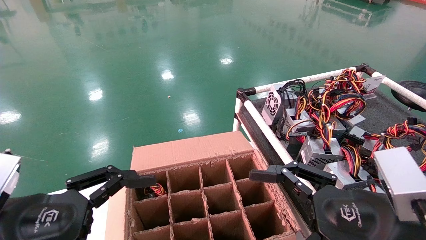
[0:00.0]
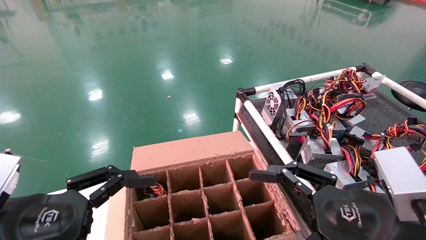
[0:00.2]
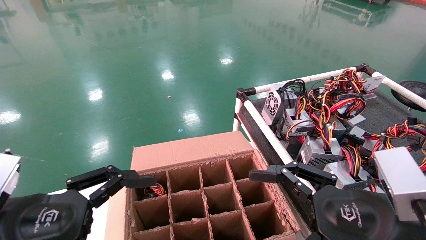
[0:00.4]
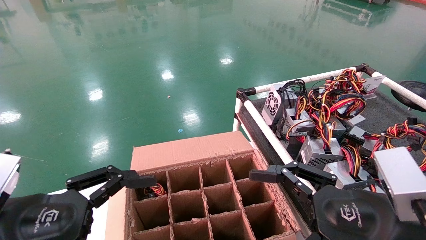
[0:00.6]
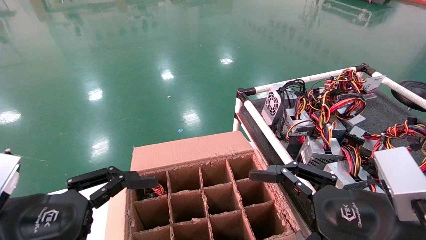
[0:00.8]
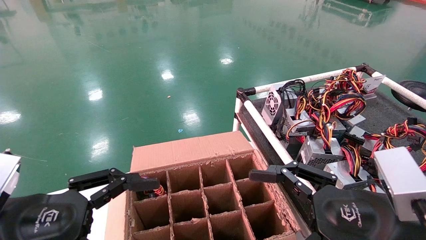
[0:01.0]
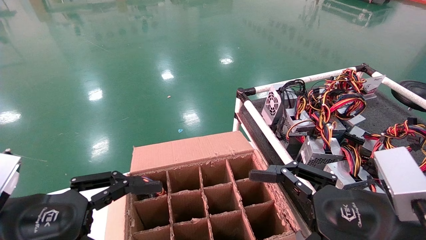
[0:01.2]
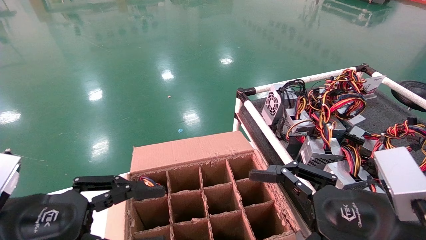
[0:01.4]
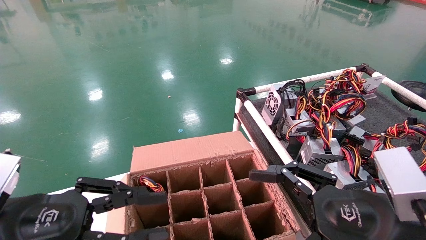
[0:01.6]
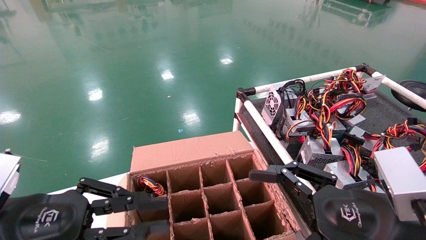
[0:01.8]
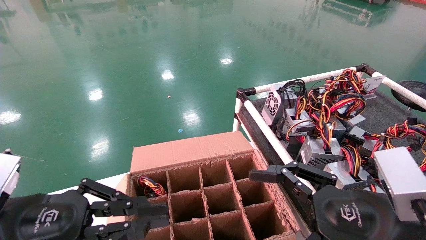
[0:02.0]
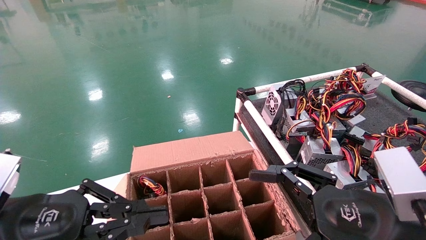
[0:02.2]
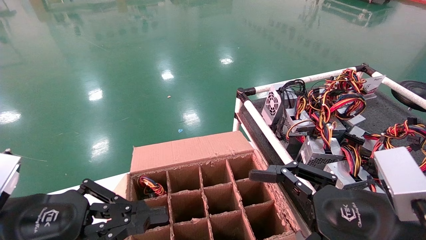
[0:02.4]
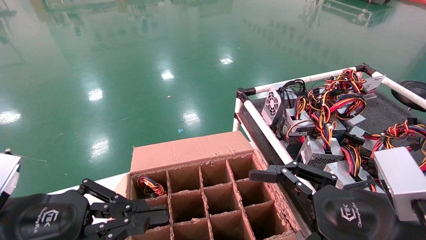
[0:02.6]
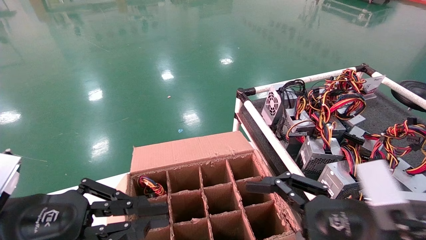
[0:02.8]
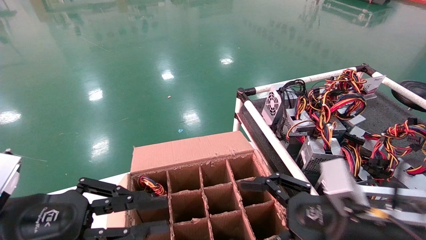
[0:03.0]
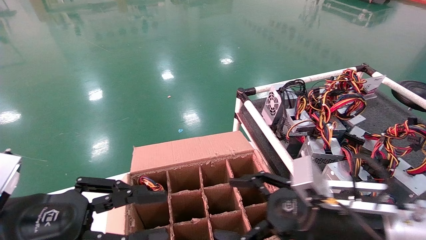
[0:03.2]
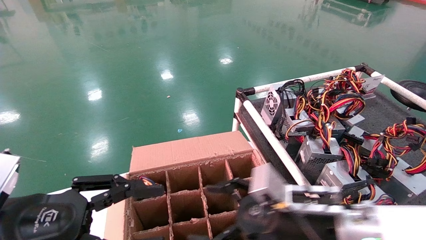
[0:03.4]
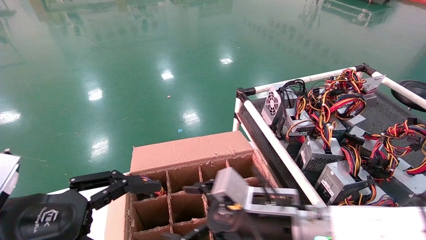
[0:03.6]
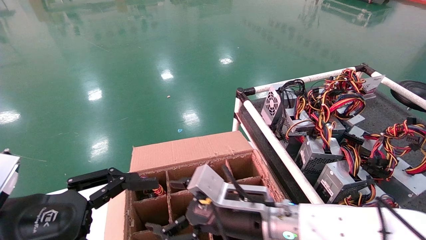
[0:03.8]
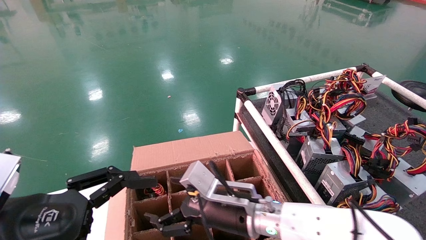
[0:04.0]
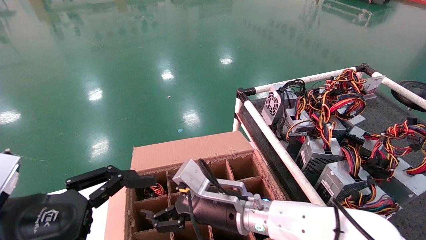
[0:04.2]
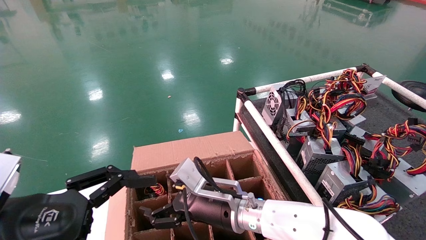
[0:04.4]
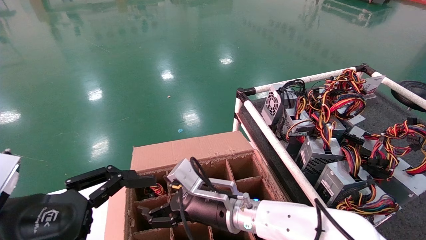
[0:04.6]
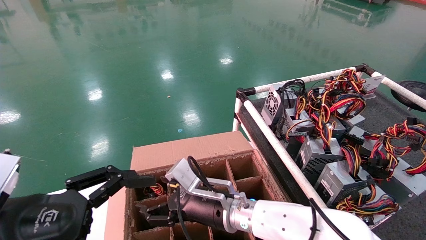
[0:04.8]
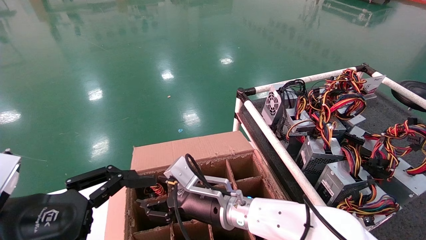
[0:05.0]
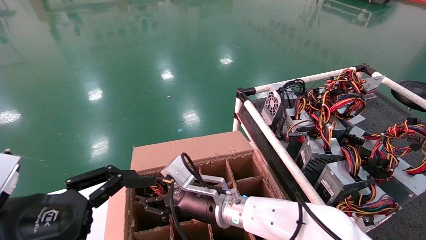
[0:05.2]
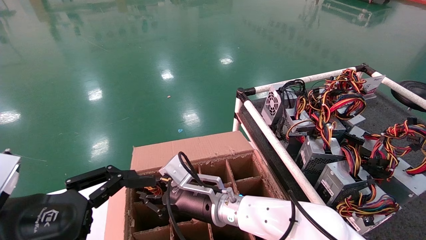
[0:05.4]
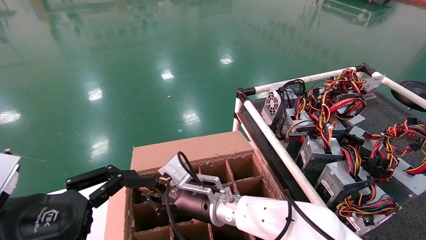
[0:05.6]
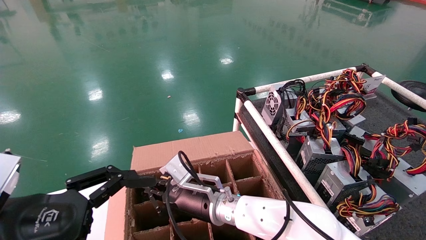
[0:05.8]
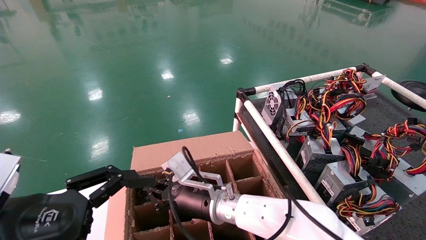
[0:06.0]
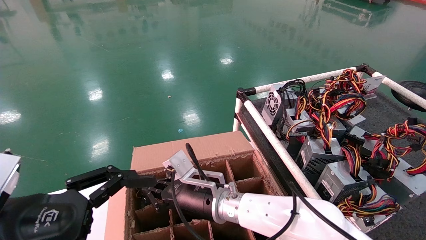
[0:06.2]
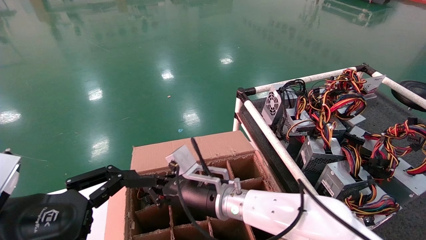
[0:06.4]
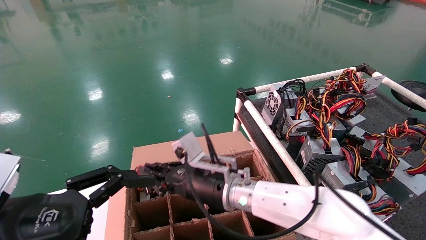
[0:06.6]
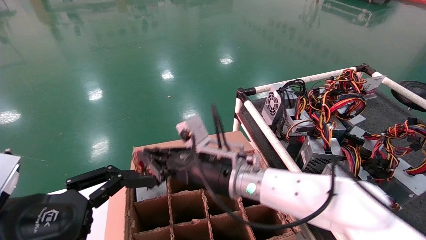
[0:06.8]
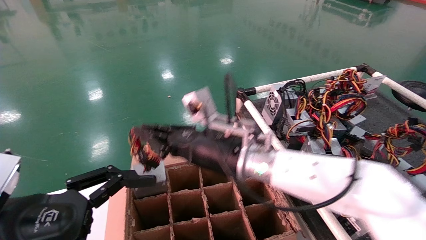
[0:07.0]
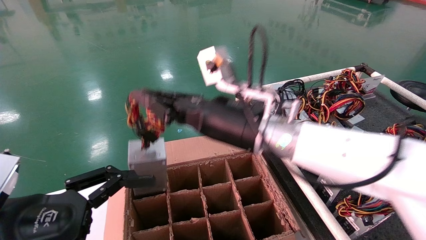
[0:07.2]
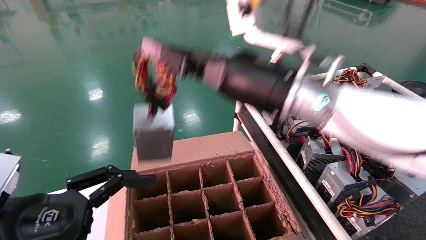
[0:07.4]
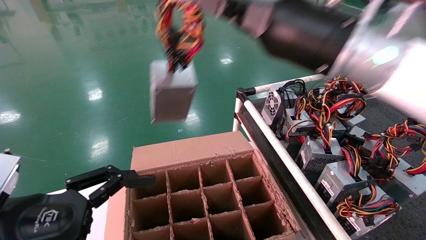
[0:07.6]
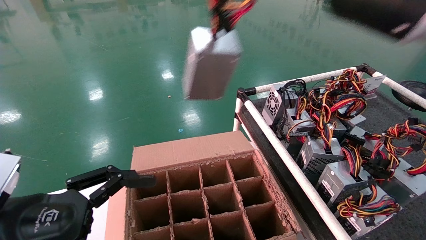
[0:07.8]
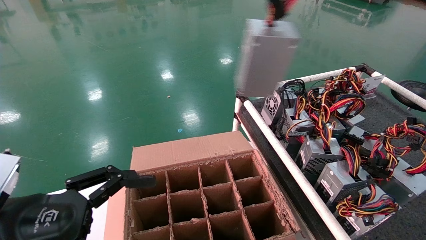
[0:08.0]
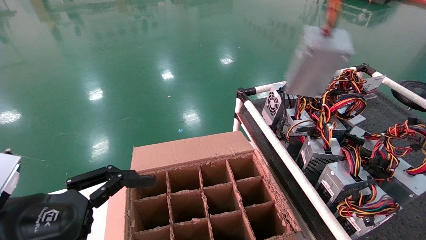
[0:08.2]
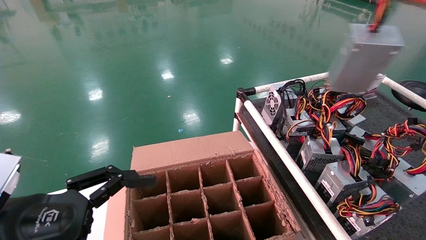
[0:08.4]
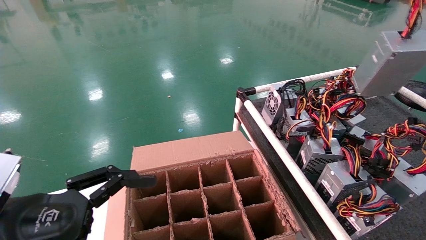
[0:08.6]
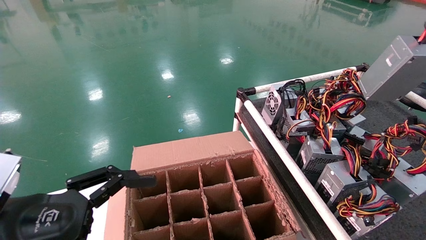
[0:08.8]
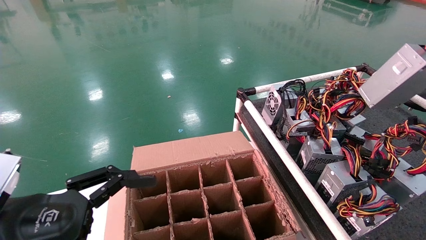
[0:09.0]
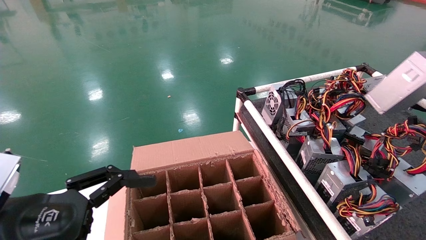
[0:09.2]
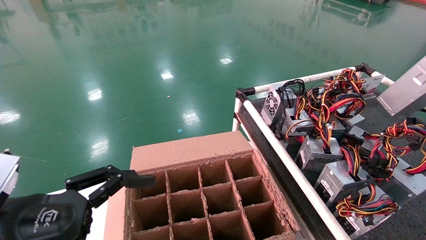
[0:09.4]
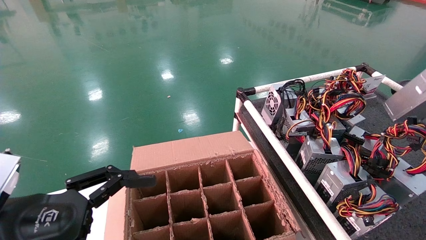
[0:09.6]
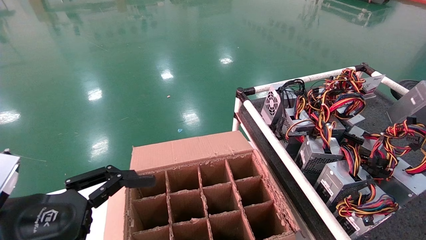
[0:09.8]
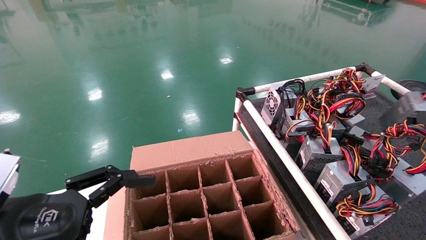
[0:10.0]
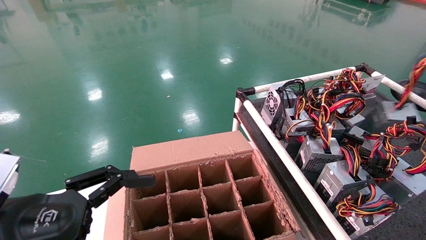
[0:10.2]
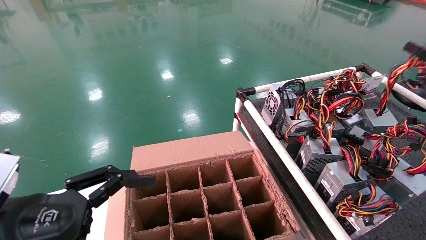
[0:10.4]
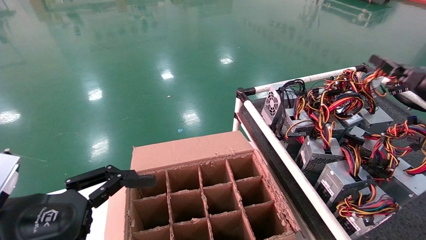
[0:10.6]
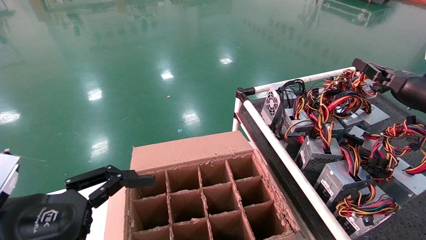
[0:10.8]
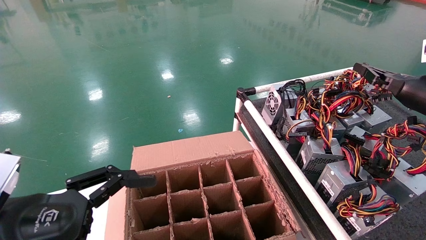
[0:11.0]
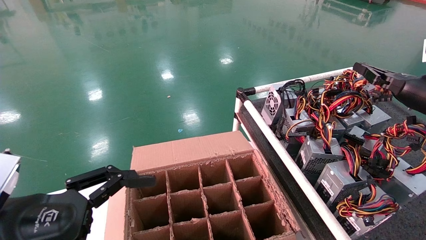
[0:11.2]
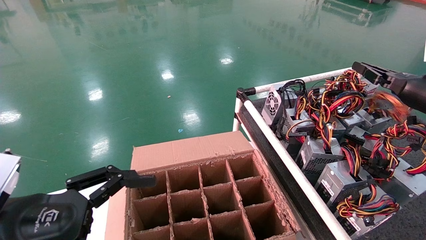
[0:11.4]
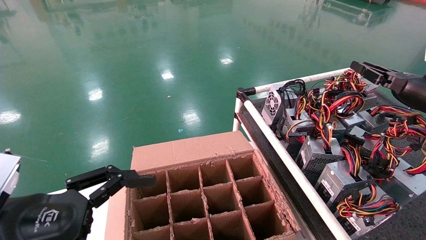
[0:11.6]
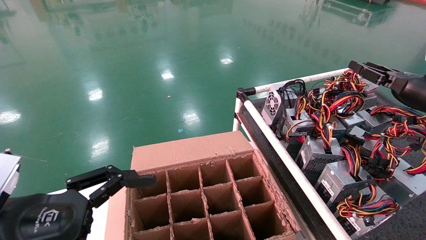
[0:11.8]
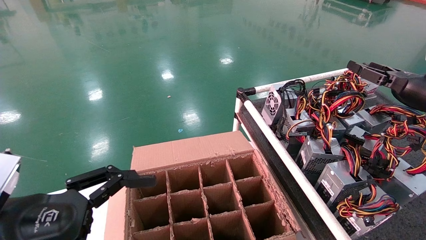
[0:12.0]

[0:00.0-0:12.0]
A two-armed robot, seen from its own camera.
Step, 0:03.0 to 0:06.0: Grab and lift the power supply from the large box.
Step, 0:06.2 to 0:11.6: Place the power supply on the operating table.
0:00.0 to 0:01.6: The left gripper closes up.
0:01.6 to 0:03.0: The right gripper moves approximately 5 cm.
0:03.0 to 0:04.4: The right gripper goes about 25 cm to the left and forward; the left gripper opens its fingers.
0:04.4 to 0:06.0: The right gripper changes place by some 5 cm, and closes.
0:06.0 to 0:07.6: The right gripper goes roughly 35 cm upward, to the right and backward.
0:07.6 to 0:09.0: The right gripper travels to the right by approximately 35 cm.
0:09.0 to 0:10.4: The right gripper moves forward and downward, about 15 cm.
0:10.4 to 0:12.0: The right gripper goes approximately 5 cm to the left, and opens.

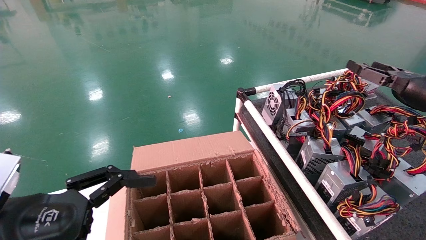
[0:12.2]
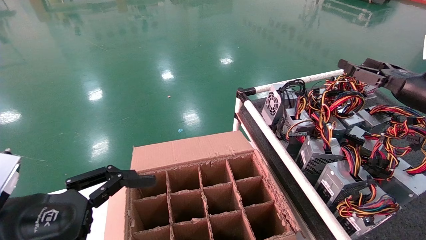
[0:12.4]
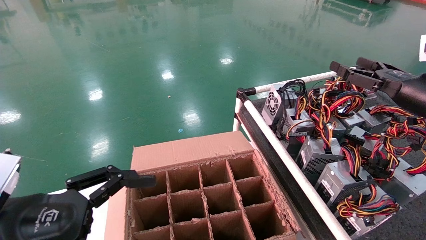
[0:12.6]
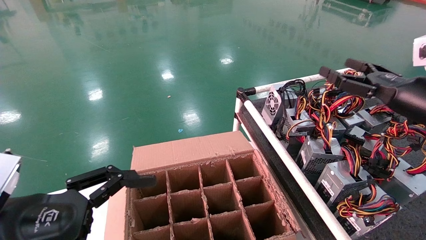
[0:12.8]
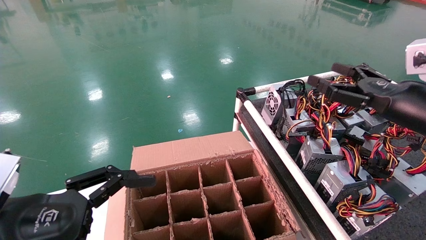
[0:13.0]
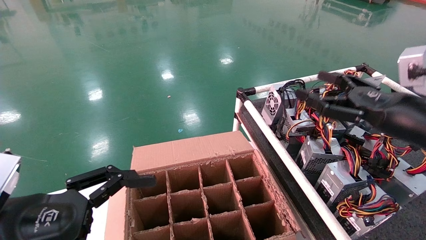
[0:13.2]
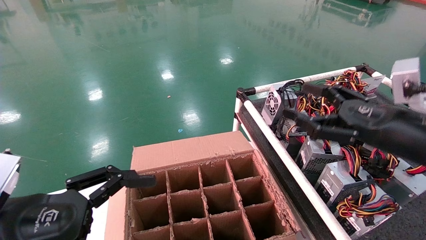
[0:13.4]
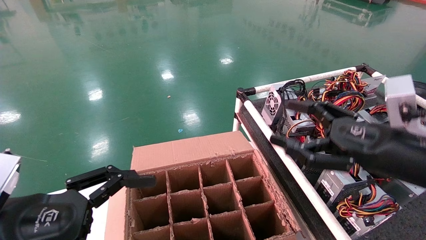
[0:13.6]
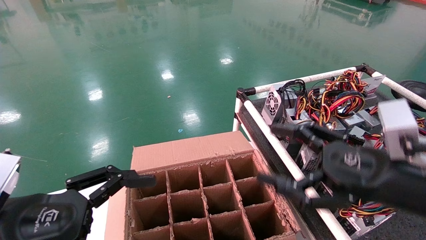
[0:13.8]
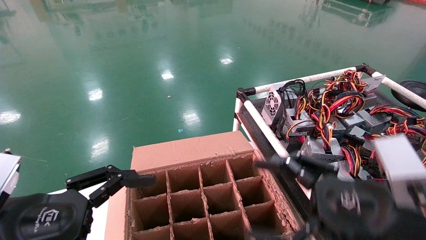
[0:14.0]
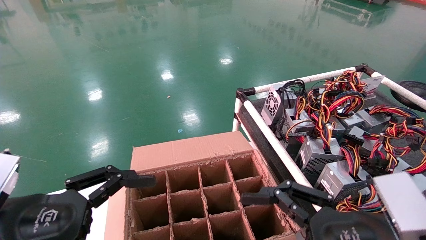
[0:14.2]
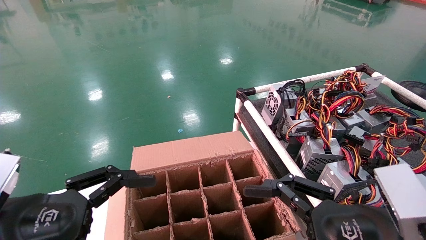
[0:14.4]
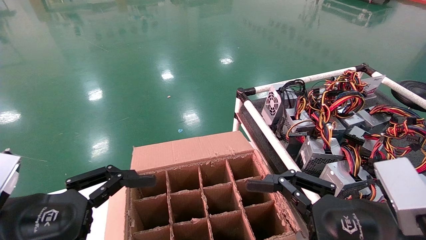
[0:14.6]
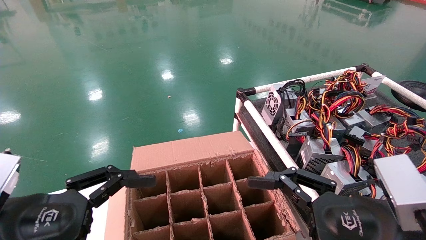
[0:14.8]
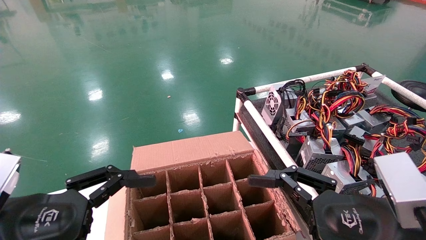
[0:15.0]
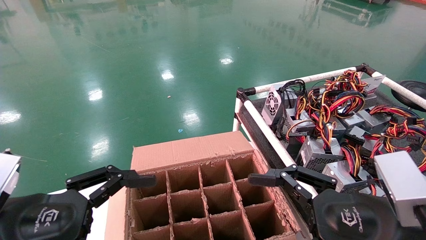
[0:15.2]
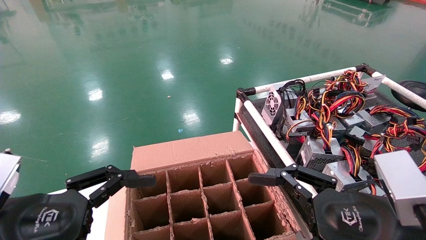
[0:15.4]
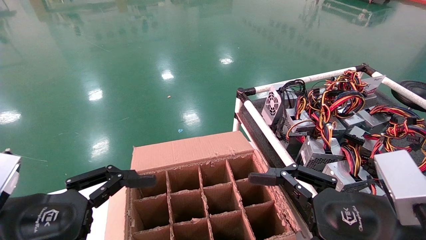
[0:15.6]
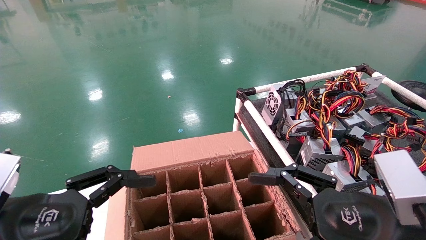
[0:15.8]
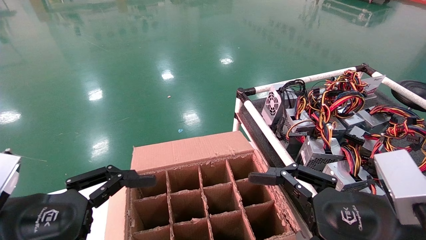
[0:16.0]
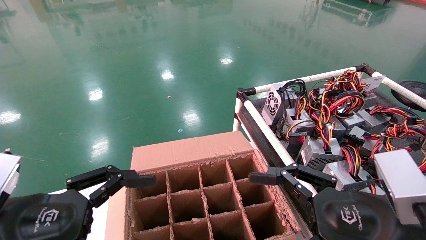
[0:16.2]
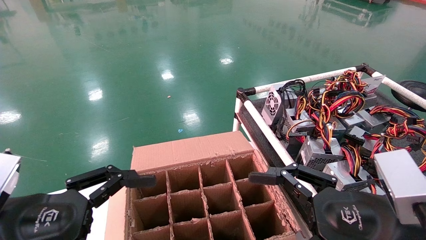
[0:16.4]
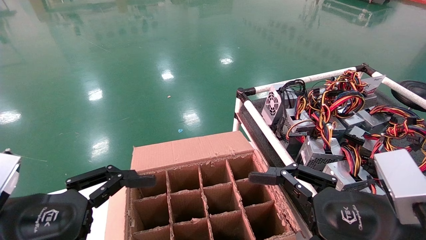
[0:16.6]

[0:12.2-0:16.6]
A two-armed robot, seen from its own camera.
0:12.2 to 0:13.6: The right gripper heads to the left, backward and downward, covering some 20 cm.
0:13.6 to 0:15.2: The right gripper is displaced backward by about 5 cm.
0:15.2 to 0:16.6: Both grippers stay about where they are.
